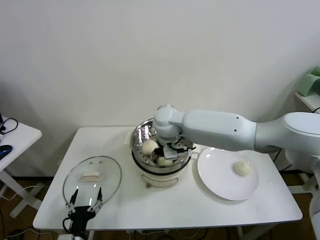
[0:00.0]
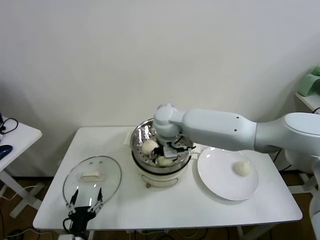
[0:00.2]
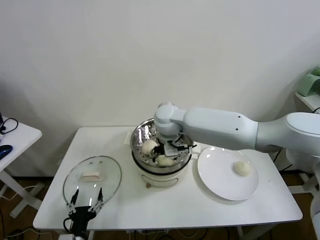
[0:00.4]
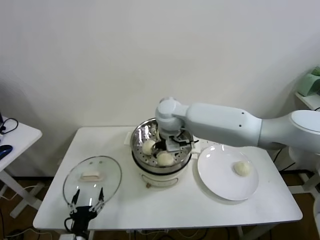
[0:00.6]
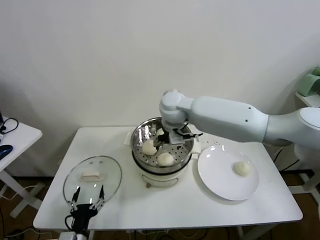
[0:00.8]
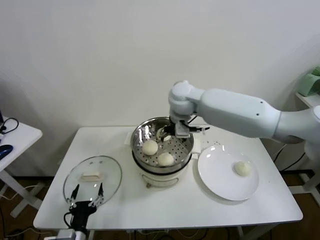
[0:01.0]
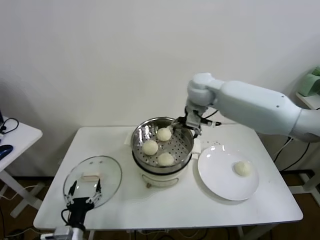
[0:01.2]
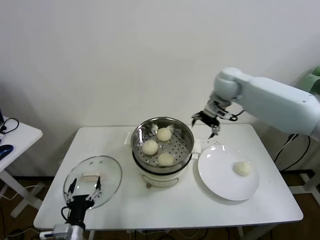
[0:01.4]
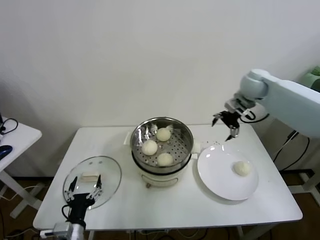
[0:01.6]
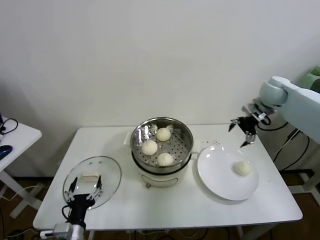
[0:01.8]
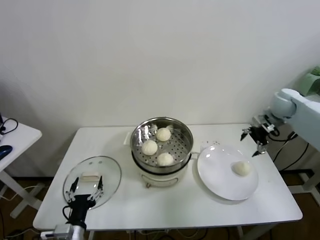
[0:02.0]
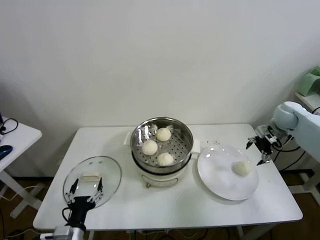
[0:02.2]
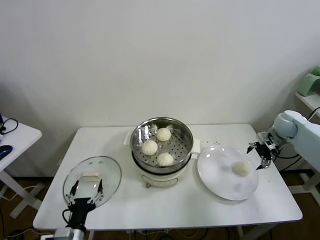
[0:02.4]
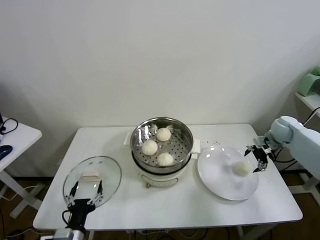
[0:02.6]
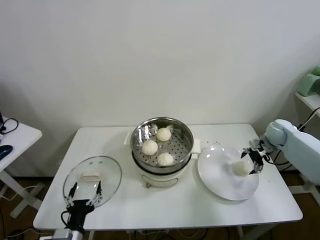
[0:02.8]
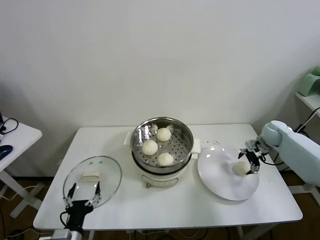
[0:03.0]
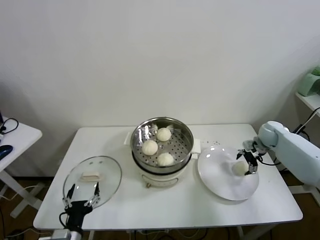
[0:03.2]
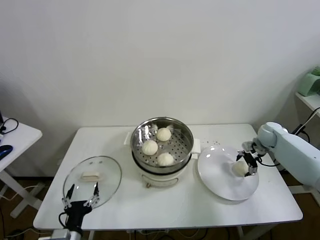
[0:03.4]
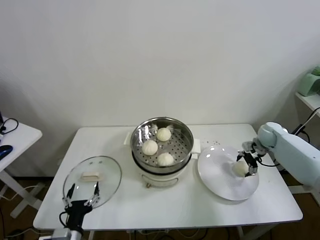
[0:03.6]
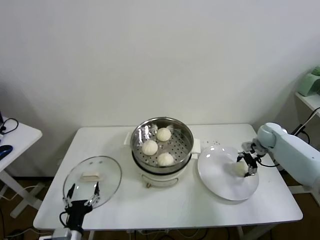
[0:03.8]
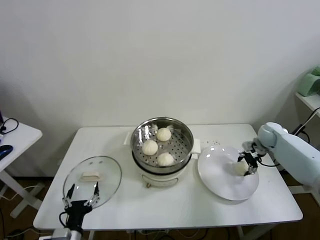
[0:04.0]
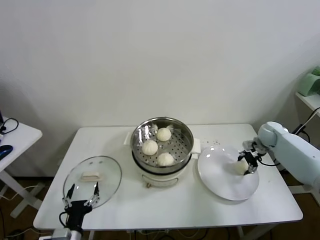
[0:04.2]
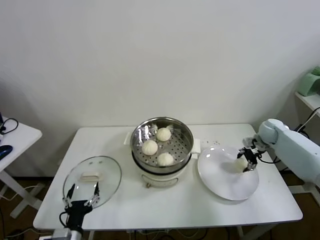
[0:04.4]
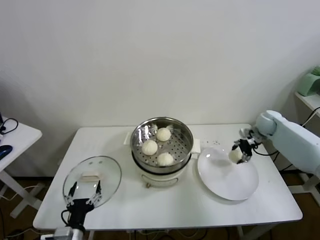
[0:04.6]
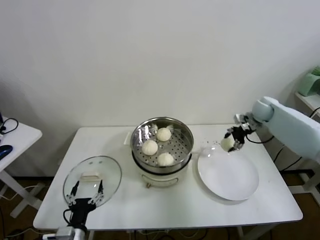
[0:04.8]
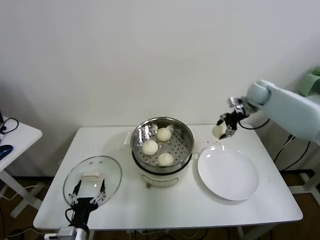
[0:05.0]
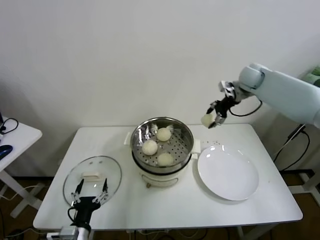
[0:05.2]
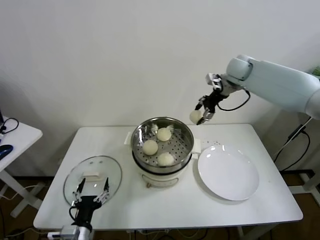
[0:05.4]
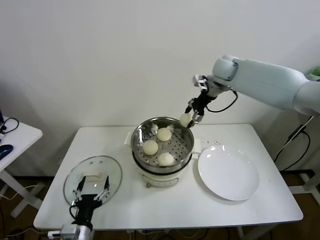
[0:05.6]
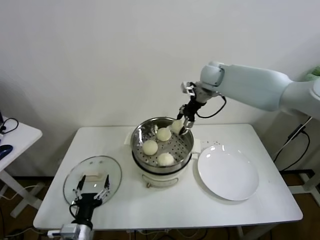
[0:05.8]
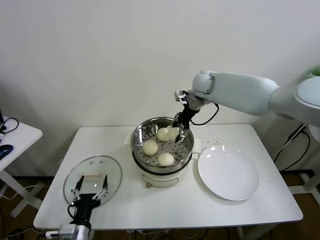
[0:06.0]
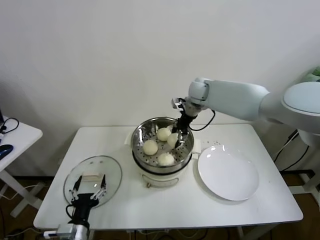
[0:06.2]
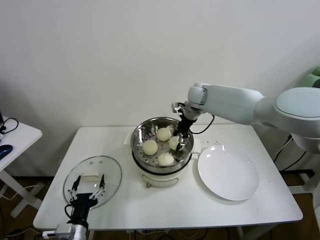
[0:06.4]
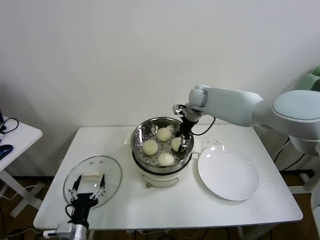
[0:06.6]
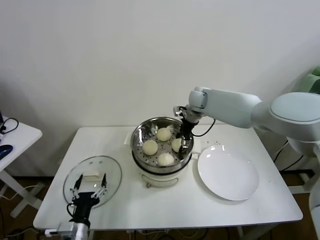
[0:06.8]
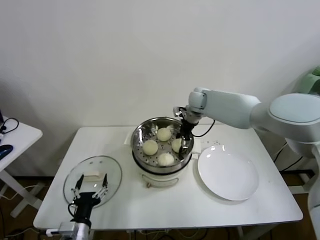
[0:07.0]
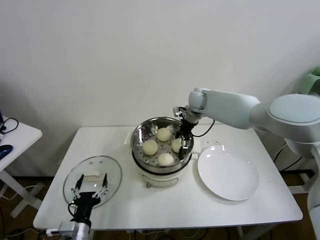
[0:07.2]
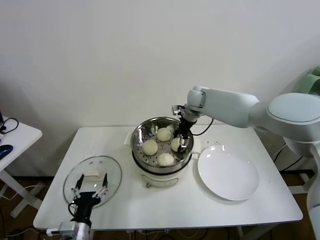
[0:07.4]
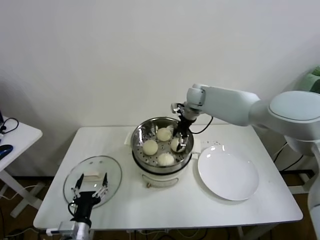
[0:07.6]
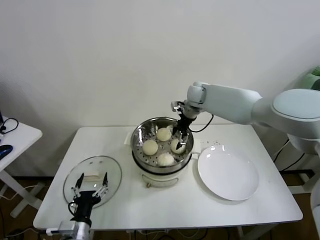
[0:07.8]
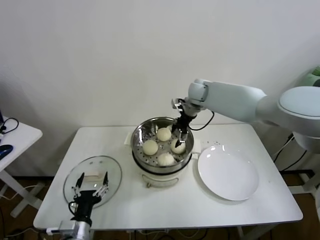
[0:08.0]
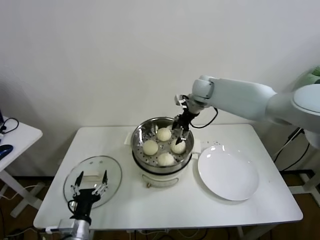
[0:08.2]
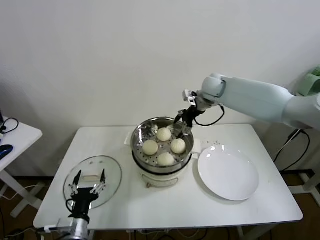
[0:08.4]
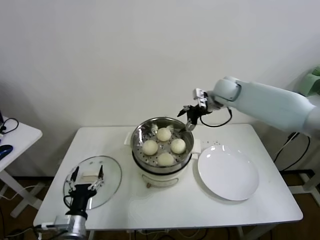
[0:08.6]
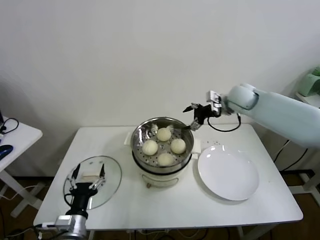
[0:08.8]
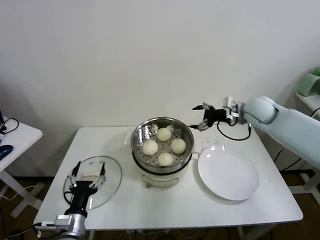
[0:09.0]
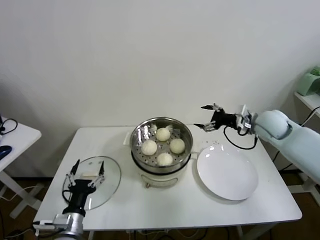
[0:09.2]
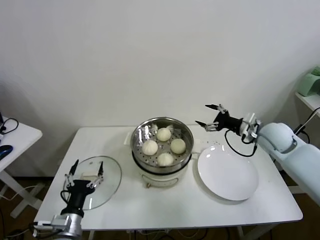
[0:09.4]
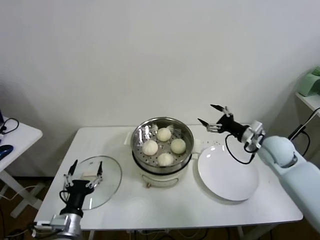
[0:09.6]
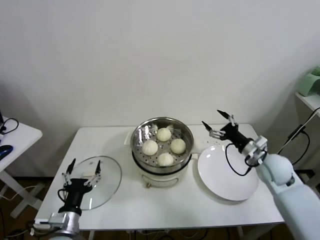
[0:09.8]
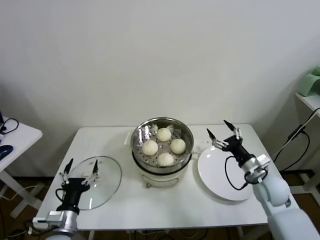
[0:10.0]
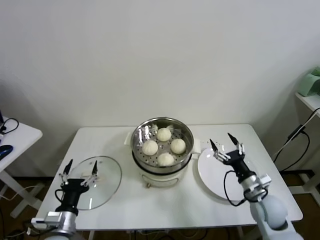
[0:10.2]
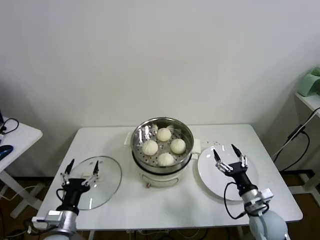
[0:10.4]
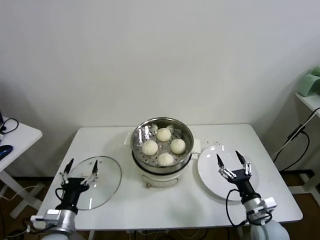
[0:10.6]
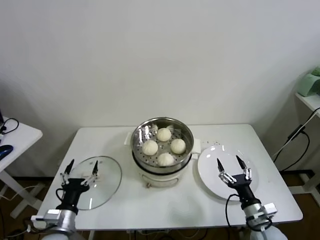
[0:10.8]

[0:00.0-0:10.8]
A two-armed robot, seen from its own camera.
Task of the whole recording: take steamed baozi put them in steamer.
Step, 0:00.6 to 0:03.8: Grasp the baozi in the plate with right gripper.
Step, 0:04.0 to 0:07.8: Place the baozi on the steamer with right gripper.
0:00.0 to 0:01.6: The right gripper heads to the right, covering about 30 cm, and opens up.
0:01.6 to 0:03.0: The right gripper goes roughly 25 cm downward and to the right.
0:03.0 to 0:04.6: The right gripper closes its fingers.
0:04.6 to 0:06.2: The right gripper travels to the left and upward by some 30 cm.
0:06.2 to 0:07.8: The right gripper opens.
0:07.8 to 0:09.2: The right gripper is displaced to the right and backward by some 25 cm.
0:09.2 to 0:10.8: The right gripper moves backward and downward, some 35 cm.
